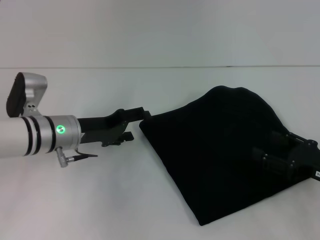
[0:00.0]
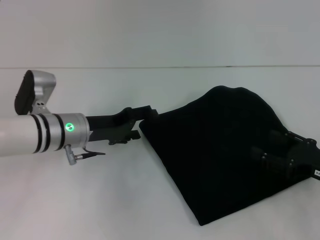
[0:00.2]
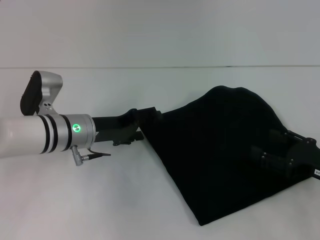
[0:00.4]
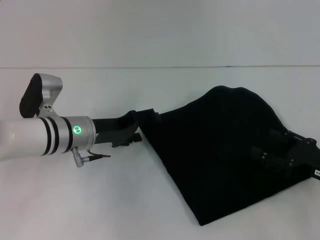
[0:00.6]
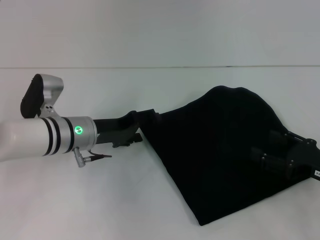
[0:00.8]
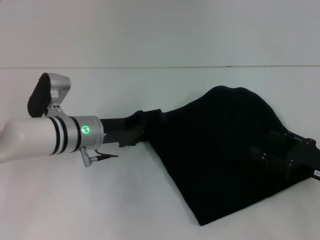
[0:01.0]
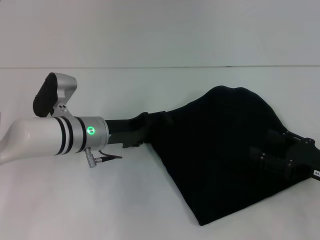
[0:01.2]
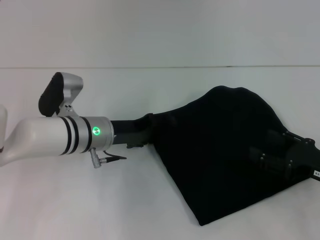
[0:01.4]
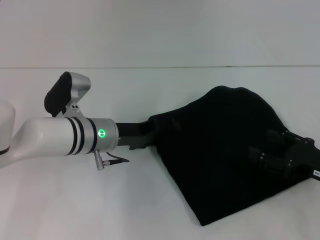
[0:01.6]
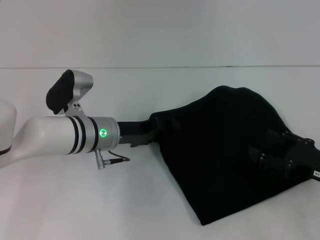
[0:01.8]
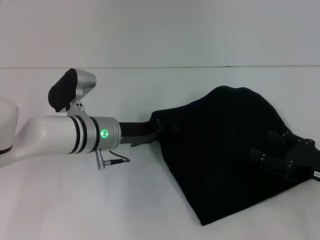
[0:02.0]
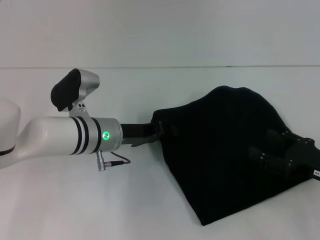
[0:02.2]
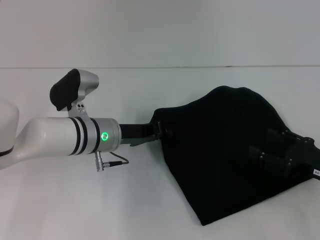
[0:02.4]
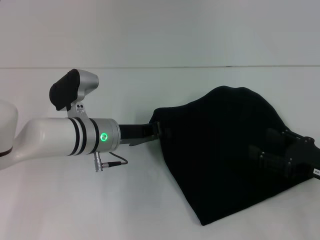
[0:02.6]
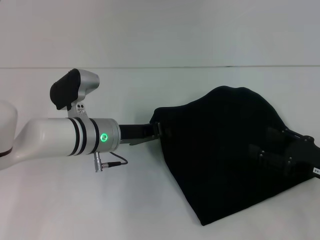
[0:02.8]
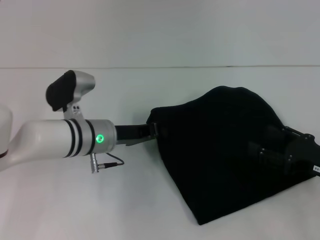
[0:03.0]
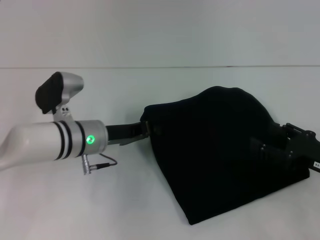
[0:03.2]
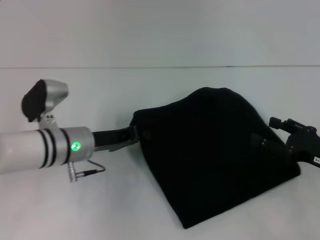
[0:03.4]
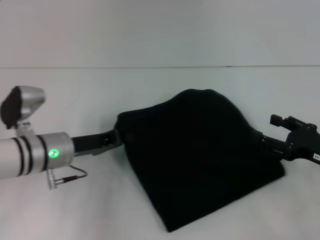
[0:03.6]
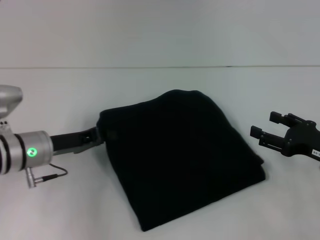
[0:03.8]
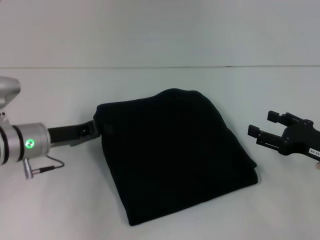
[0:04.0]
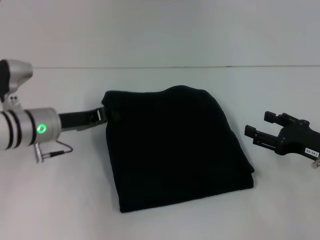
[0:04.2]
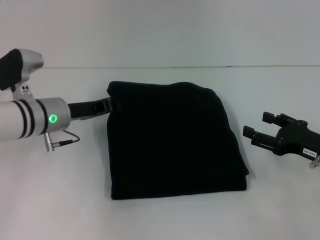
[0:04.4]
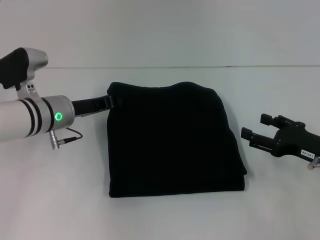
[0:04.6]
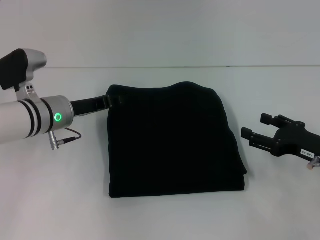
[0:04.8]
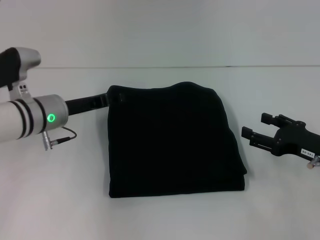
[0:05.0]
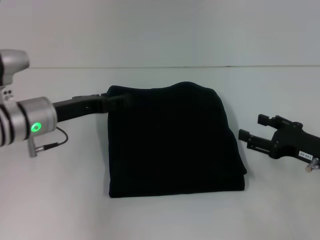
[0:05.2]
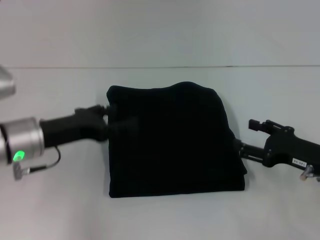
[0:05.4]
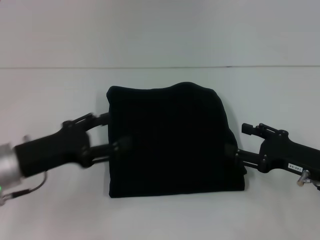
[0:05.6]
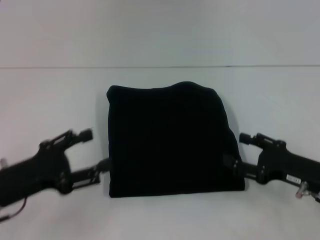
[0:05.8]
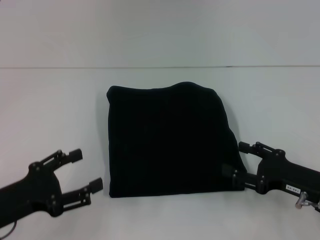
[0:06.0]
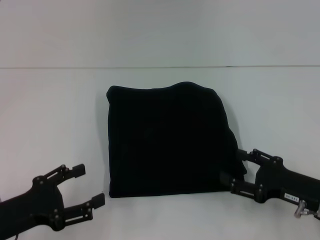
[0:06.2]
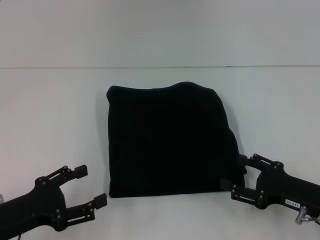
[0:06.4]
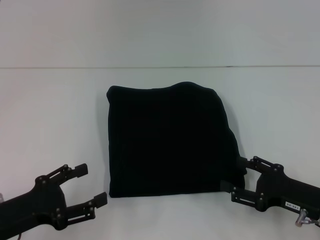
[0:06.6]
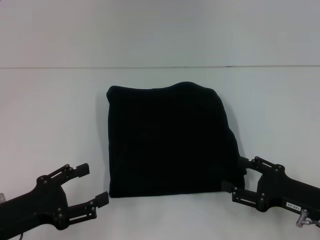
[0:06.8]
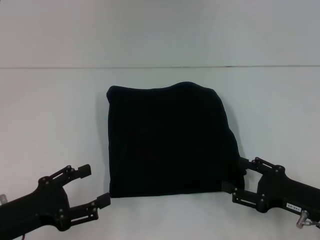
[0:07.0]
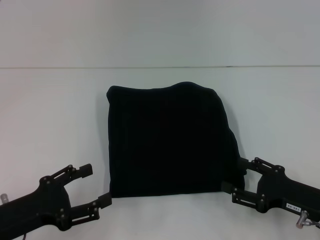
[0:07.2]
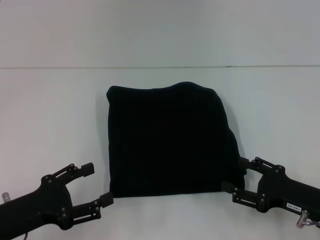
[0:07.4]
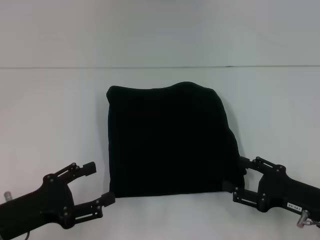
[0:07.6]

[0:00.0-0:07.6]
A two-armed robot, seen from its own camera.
0:00.0 to 0:01.6: The left gripper heads to the right, covering some 5 cm.
0:01.6 to 0:03.0: The left gripper closes.
0:03.0 to 0:04.6: The left gripper heads to the left, covering about 5 cm.
0:04.6 to 0:06.0: The left gripper goes roughly 20 cm backward and to the left, and opens.
0:06.0 to 0:07.6: The grippers stay close to where they were, moving slightly.

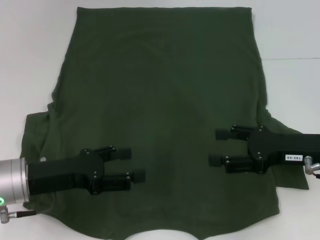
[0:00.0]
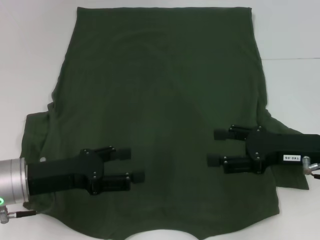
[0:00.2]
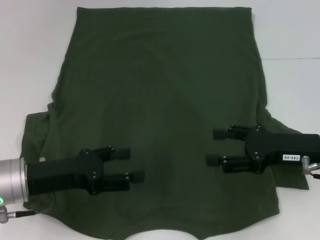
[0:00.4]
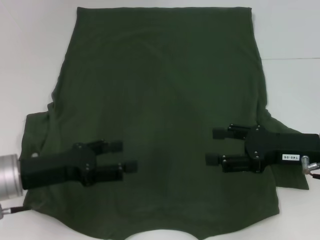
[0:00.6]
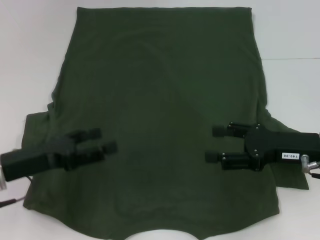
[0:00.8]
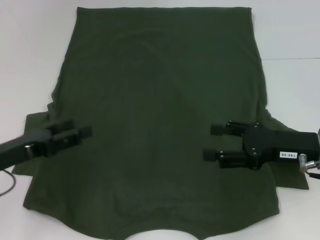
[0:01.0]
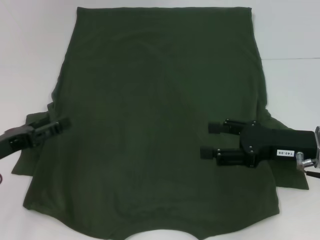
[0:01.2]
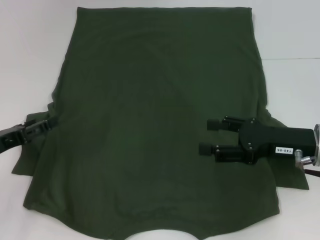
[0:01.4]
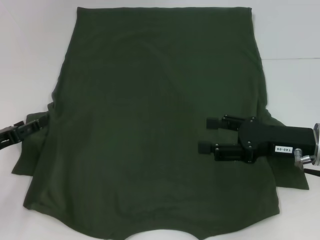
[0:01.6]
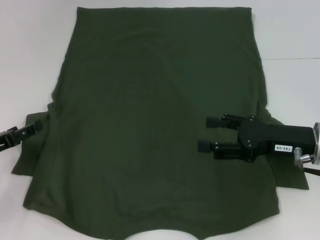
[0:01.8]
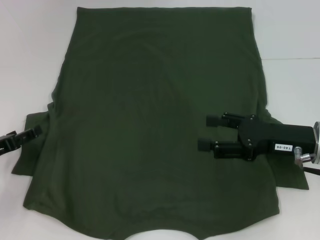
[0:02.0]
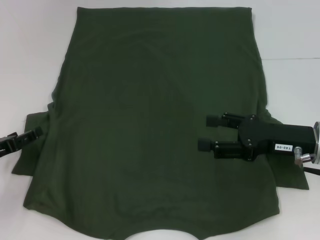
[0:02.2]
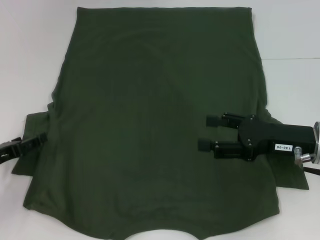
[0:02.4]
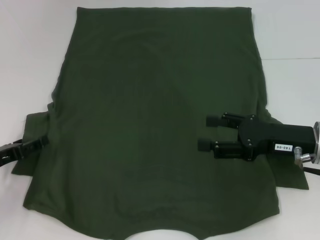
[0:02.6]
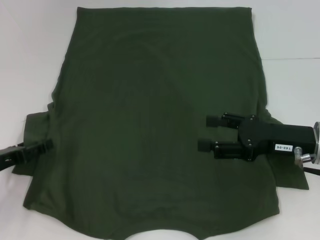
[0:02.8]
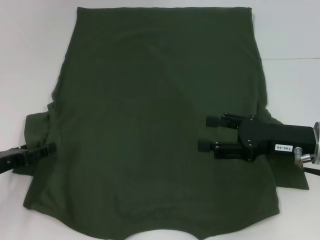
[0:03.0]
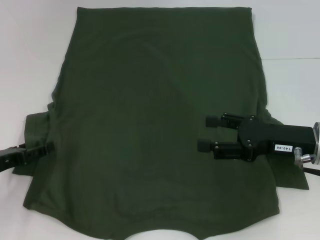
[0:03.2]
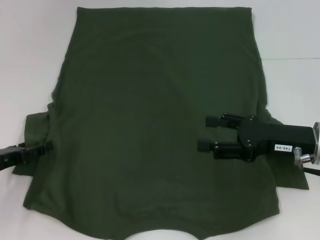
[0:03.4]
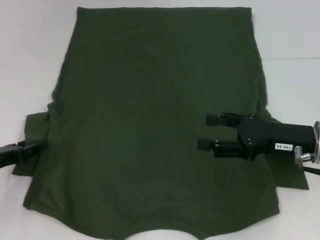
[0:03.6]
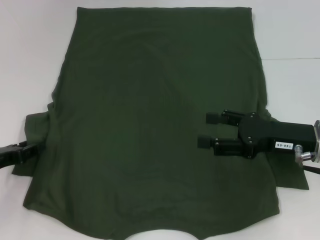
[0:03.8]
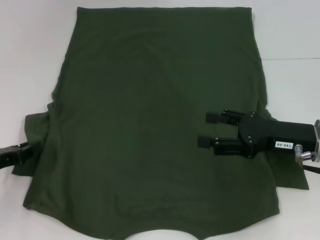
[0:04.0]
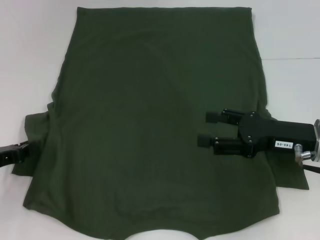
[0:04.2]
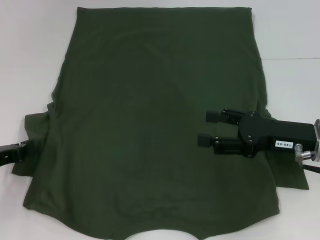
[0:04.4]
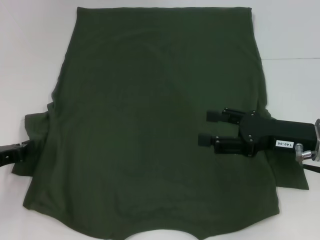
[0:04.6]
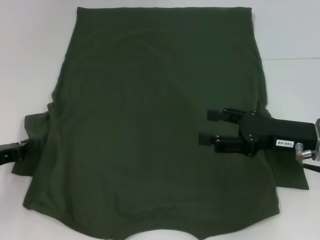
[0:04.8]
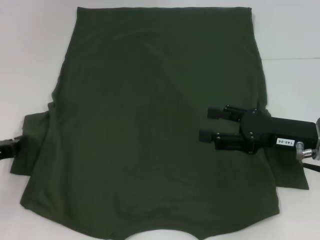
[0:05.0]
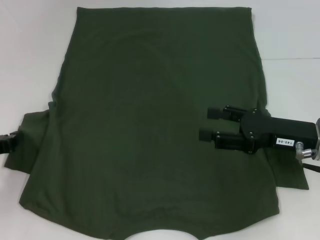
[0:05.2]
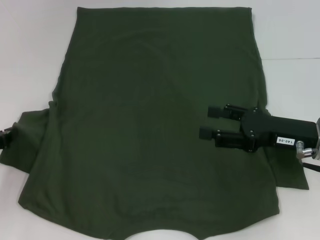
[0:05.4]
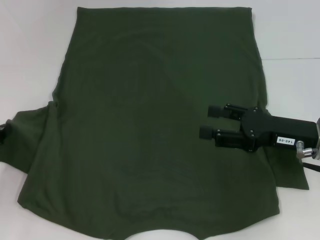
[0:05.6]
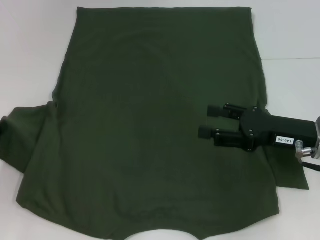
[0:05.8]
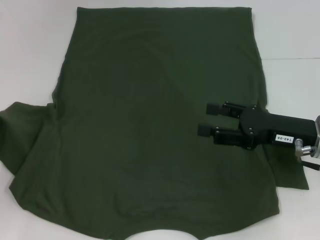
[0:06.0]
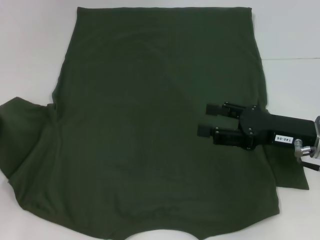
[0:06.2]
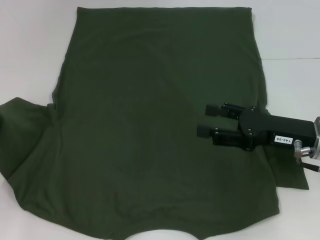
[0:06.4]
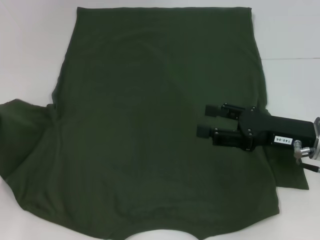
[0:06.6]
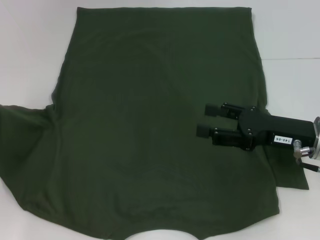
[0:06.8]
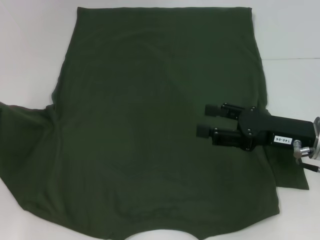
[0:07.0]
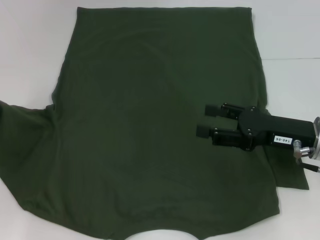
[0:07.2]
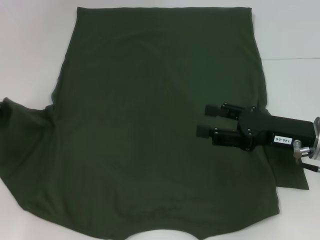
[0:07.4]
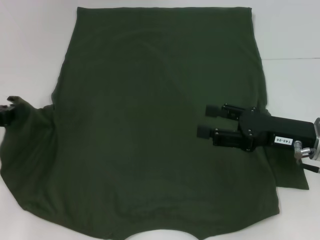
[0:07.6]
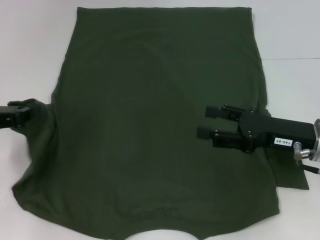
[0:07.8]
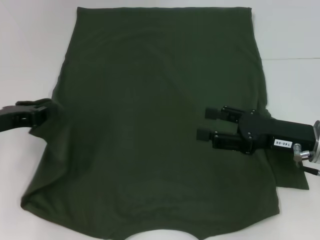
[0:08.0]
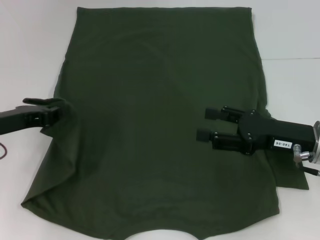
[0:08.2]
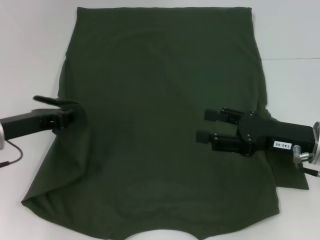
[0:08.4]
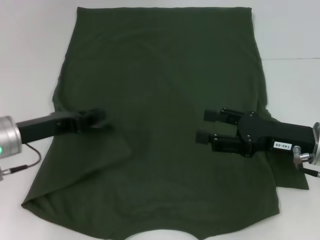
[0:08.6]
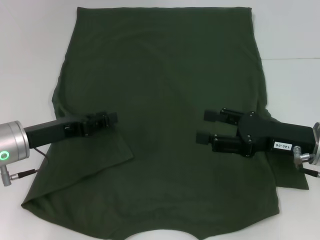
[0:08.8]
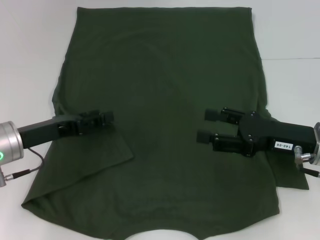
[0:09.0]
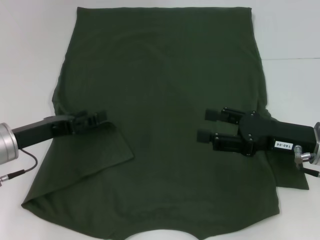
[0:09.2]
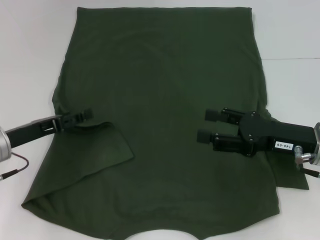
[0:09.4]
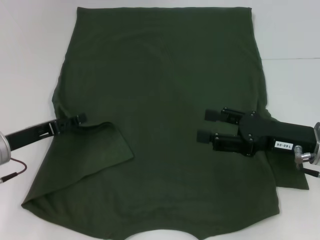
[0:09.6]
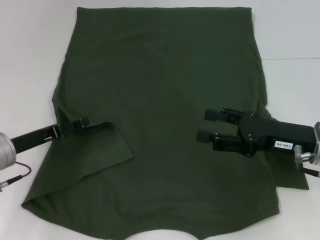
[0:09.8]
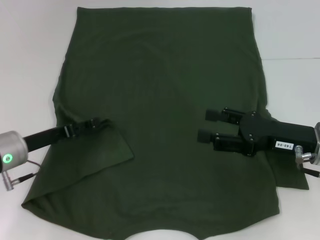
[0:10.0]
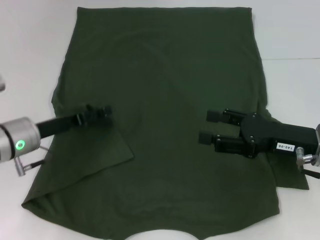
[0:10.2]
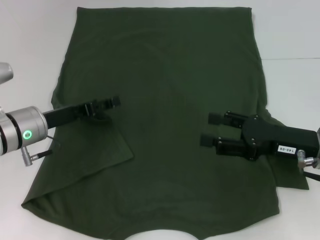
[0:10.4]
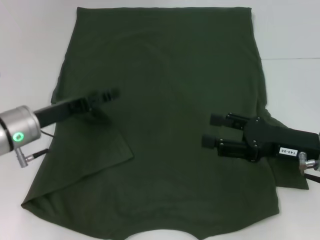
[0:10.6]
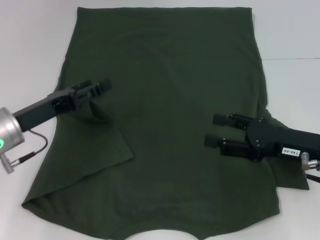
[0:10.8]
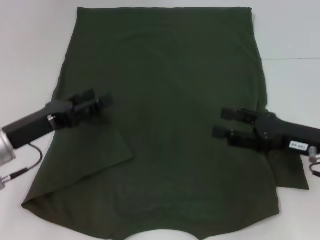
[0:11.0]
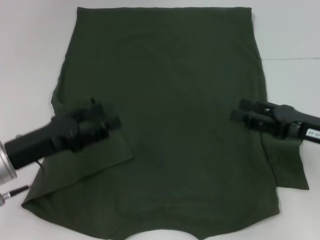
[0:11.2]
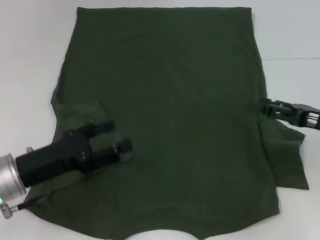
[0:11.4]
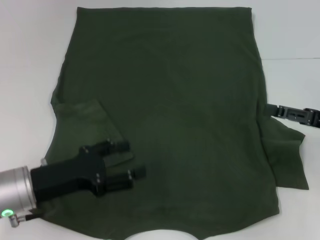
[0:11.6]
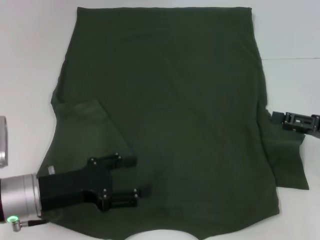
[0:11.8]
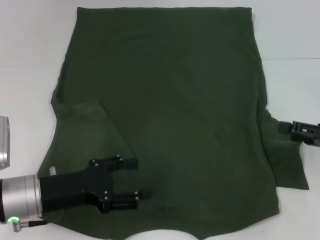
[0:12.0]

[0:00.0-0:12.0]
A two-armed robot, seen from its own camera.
Step, 0:00.0 to 0:10.4: Fold the bottom left sleeve with your left hand.
0:00.0 to 0:01.6: The left gripper travels to the left by some 10 cm.
0:01.6 to 0:03.0: The grippers move only a little.
0:03.0 to 0:04.4: The left gripper closes its fingers.
0:04.4 to 0:06.0: The grippers make only small movements.
0:06.0 to 0:07.6: There are only small adjustments of the grippers.
0:07.6 to 0:09.0: The left gripper shifts some 10 cm to the right, and opens up.
0:09.0 to 0:10.4: The left gripper opens its fingers.
0:10.4 to 0:12.0: The right gripper is displaced to the right by about 10 cm, while the left gripper shifts some 10 cm backward.

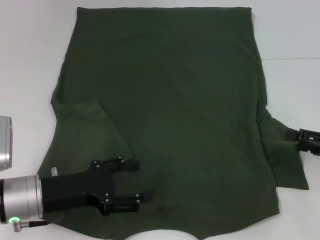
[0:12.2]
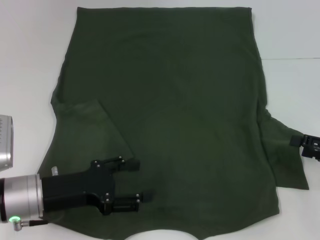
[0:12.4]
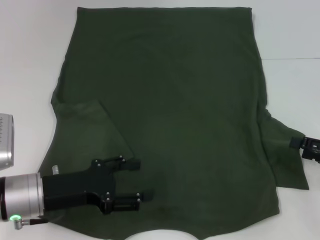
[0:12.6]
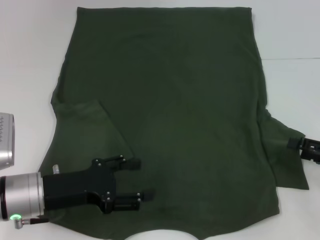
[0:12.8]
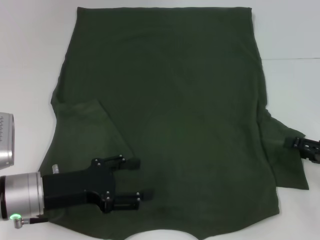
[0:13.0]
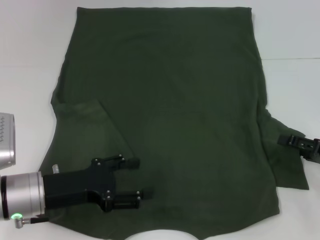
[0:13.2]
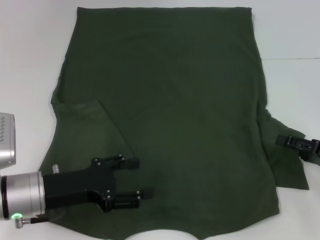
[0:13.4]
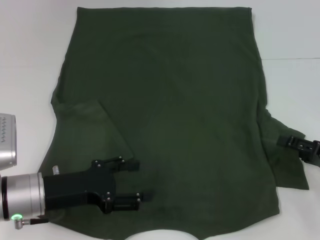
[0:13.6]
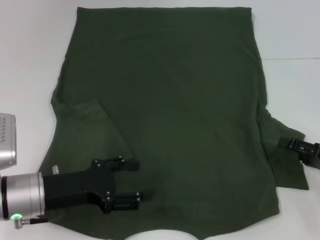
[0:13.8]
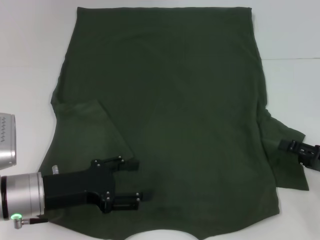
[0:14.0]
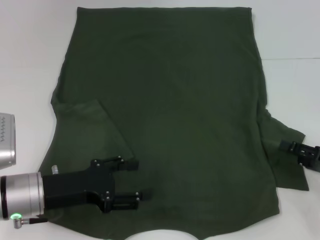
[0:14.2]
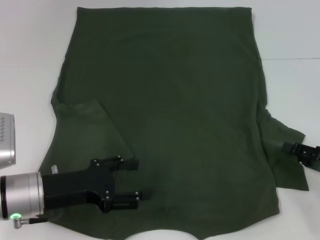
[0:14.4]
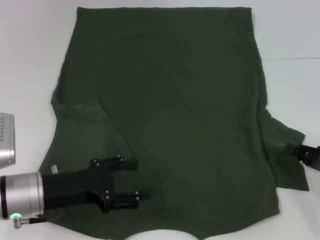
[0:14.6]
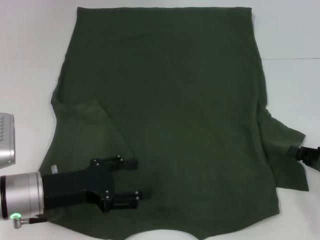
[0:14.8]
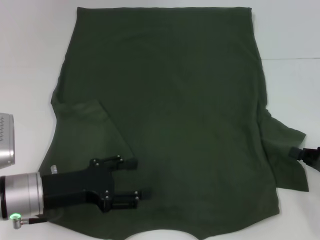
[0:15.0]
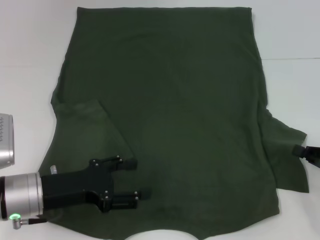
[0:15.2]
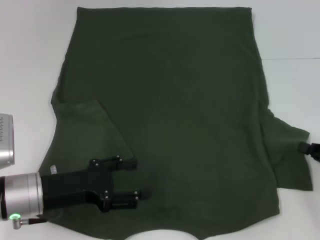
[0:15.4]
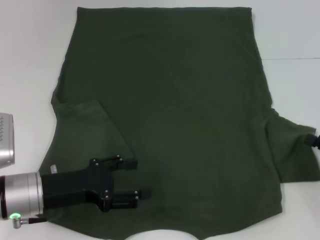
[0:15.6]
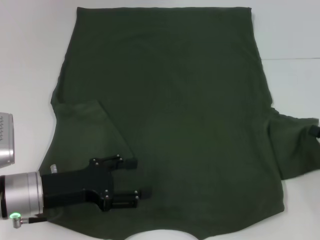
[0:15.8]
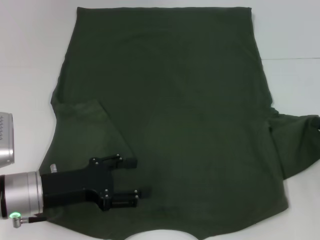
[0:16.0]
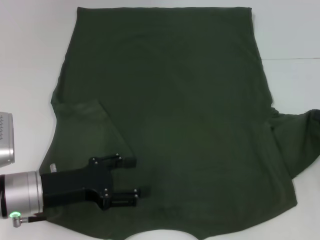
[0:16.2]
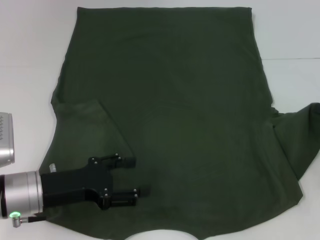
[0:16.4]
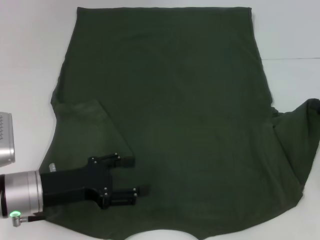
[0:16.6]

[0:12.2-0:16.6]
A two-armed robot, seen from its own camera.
0:12.2 to 0:13.6: The grippers stay close to where they were, moving slightly.
0:13.6 to 0:15.2: The right gripper closes its fingers.
0:15.2 to 0:16.6: The right gripper travels forward by some 5 cm.
